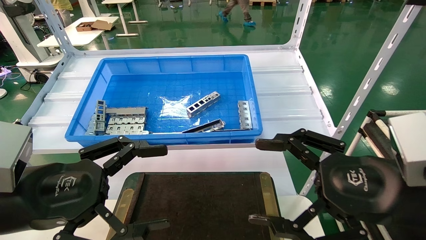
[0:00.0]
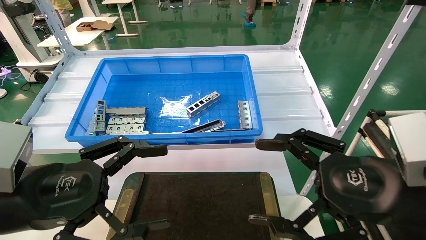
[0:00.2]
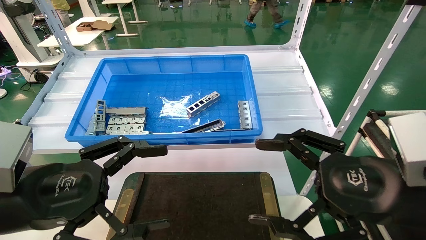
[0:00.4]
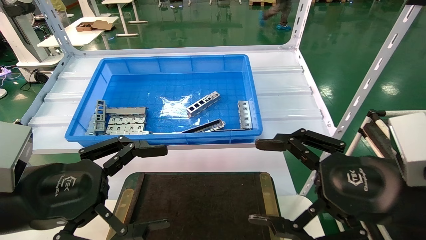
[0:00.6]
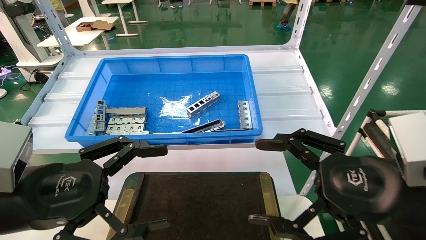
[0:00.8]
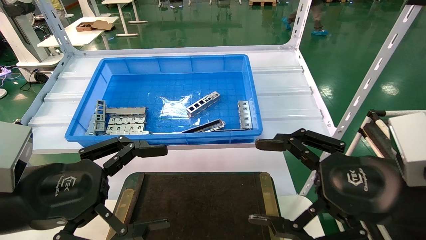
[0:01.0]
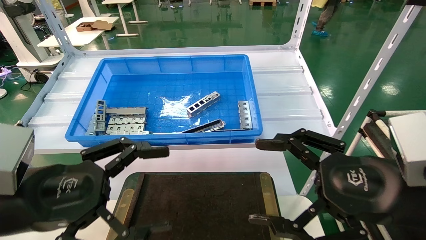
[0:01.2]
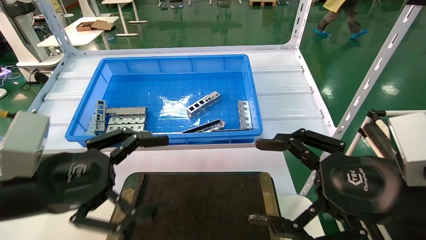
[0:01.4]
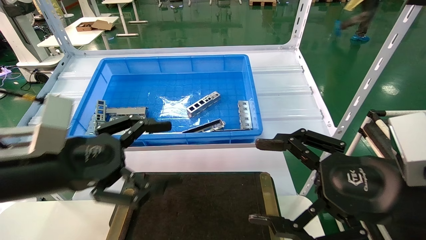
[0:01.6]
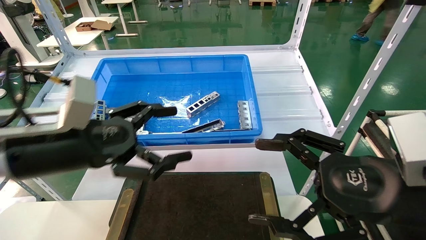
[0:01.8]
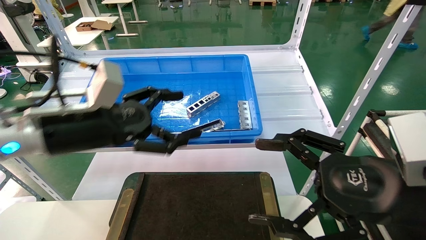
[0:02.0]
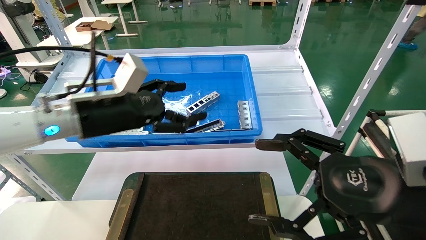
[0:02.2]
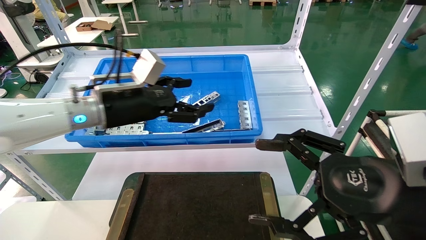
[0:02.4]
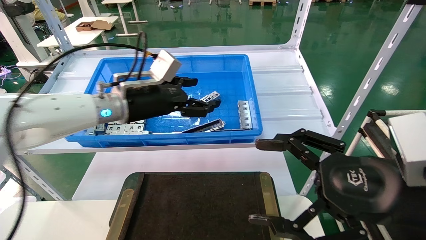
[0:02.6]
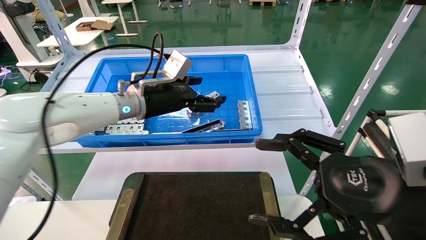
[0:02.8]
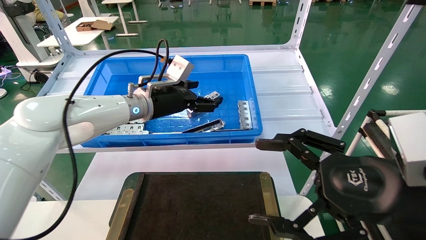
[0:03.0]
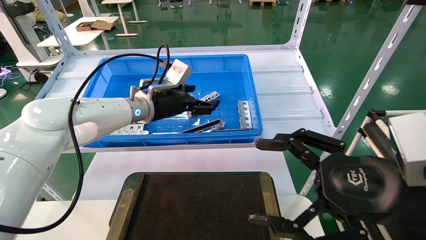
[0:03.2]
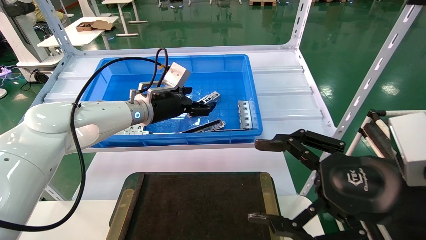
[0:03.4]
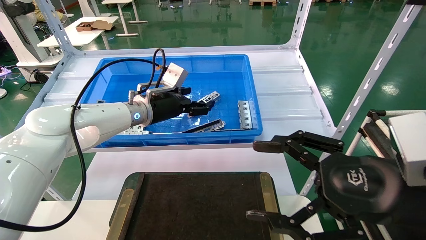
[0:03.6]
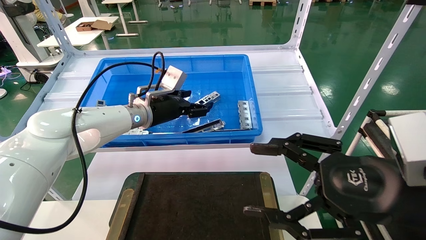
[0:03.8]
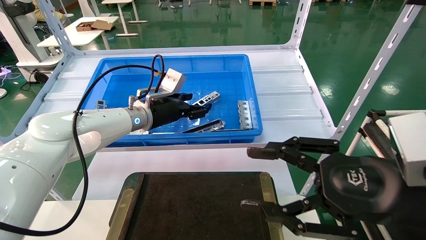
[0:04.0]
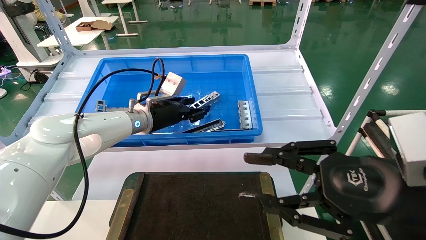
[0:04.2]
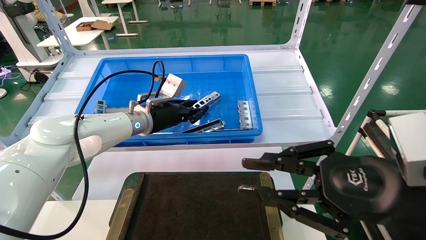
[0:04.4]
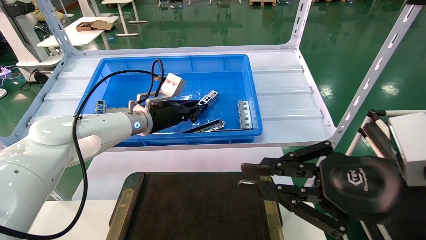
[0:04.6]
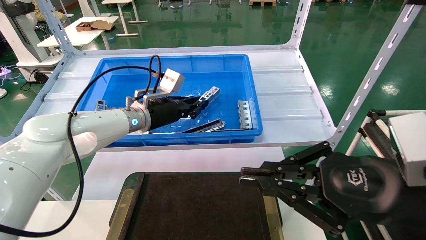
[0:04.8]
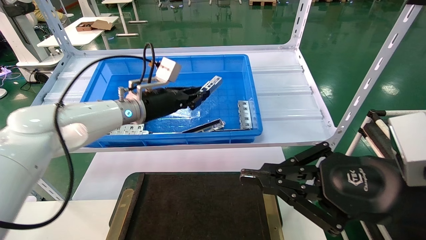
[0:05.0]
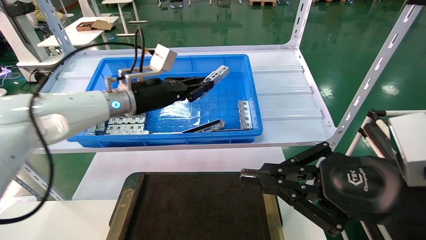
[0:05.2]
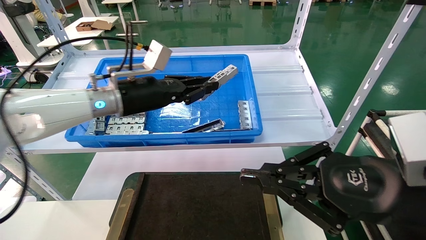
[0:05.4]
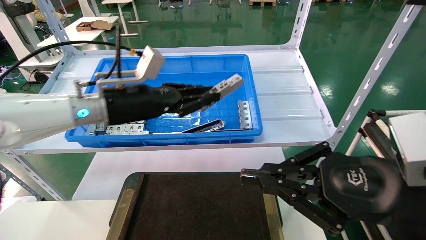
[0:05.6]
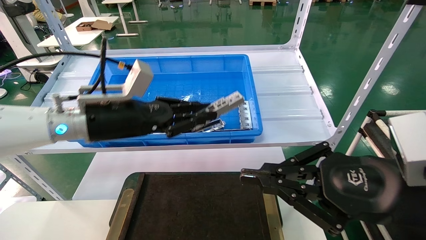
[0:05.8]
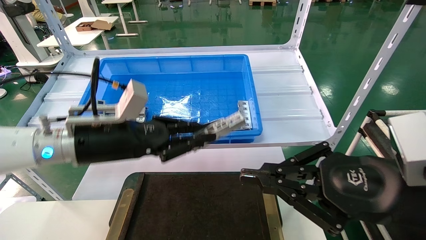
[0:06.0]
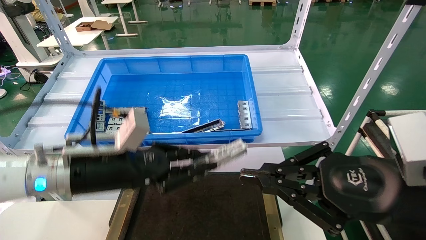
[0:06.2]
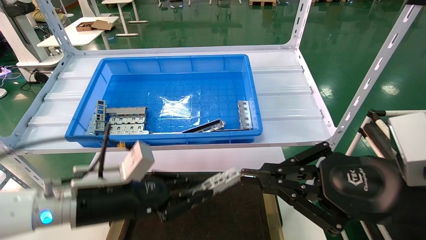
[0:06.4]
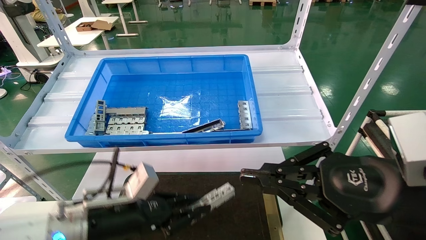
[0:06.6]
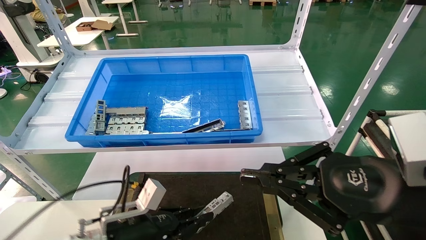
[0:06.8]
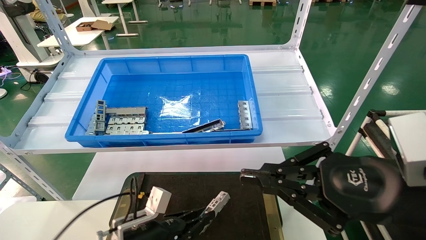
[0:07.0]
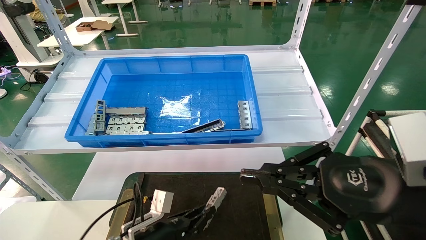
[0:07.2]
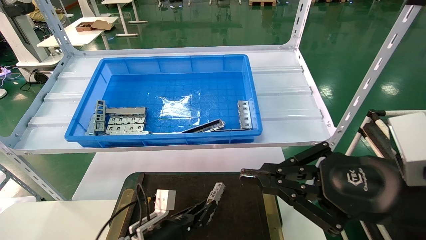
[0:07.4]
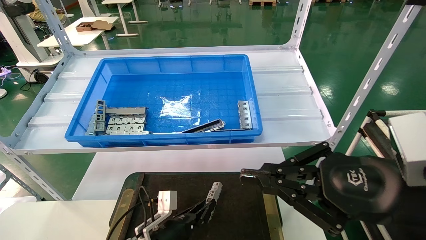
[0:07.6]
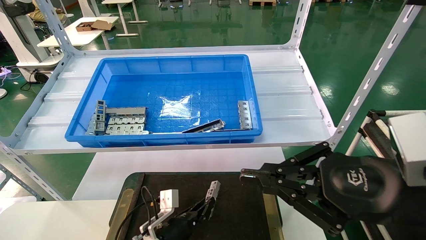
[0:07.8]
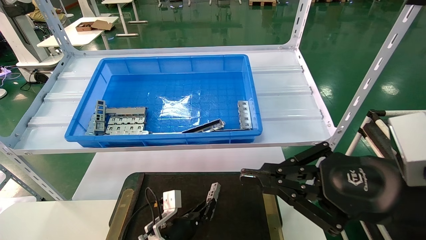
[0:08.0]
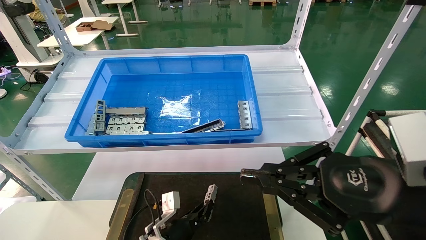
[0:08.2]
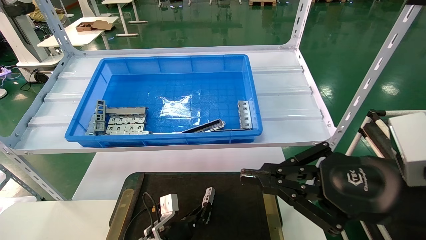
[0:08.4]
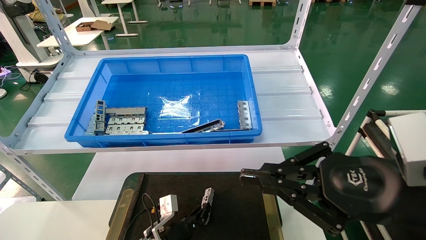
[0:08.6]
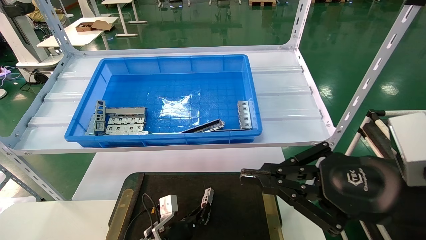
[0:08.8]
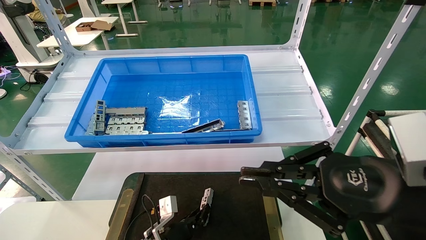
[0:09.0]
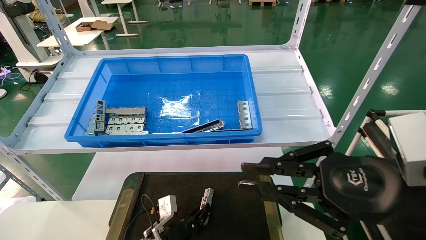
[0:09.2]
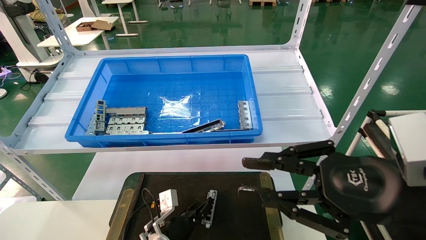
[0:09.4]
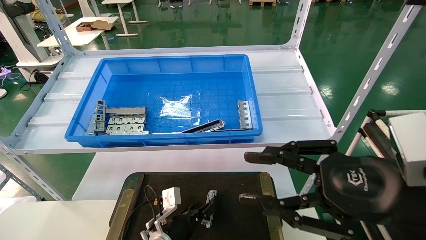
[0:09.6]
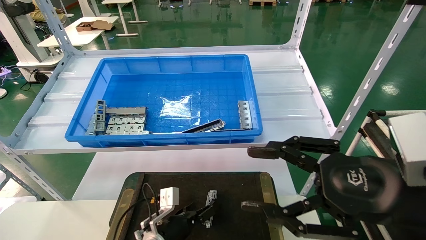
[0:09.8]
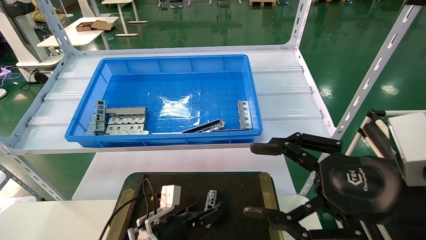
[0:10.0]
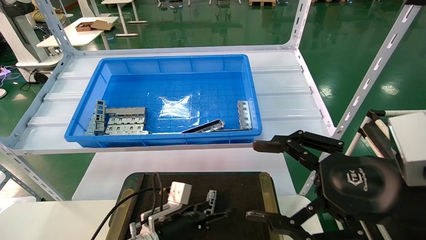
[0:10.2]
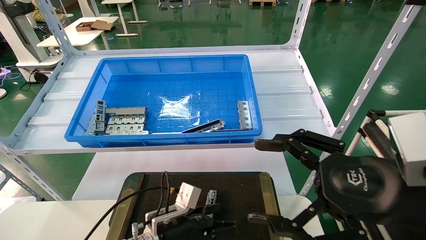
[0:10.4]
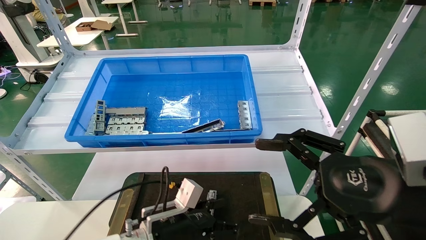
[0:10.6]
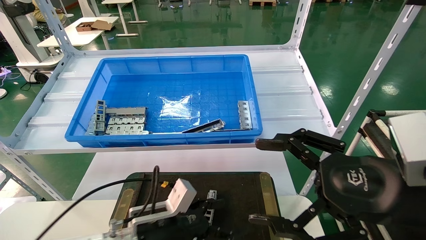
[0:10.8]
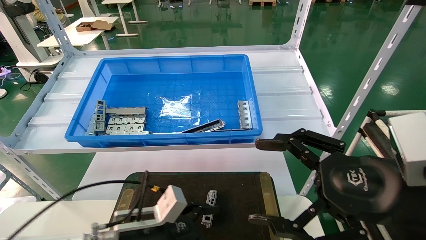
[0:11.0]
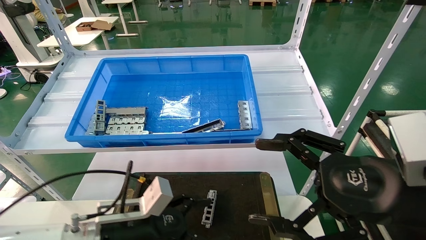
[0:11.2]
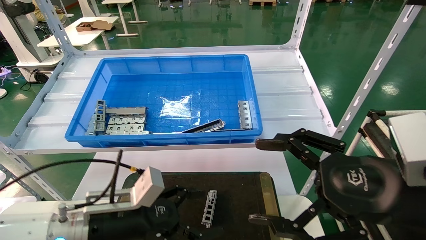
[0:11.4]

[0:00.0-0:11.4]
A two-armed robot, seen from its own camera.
Task of the whole recording: Grasp the part with one hand and place it on the black container.
Step, 0:01.6 to 0:04.6: Pick up the front USB bracket from the feeding area.
Step, 0:04.8 to 0:09.0: Place the front USB bracket into the box.
0:00.0 to 0:01.4: There are only small adjustments of the grippers.
0:01.4 to 0:02.8: The left gripper heads forward and to the right, covering roughly 25 cm.
0:02.8 to 0:04.2: The left gripper travels downward by approximately 5 cm, and closes. The right gripper closes its fingers.
0:04.2 to 0:05.6: The right gripper closes its fingers, while the left gripper is displaced backward and upward by approximately 10 cm, and closes up.
0:05.6 to 0:07.2: The left gripper heads downward, covering roughly 30 cm.
0:07.2 to 0:08.6: The left gripper goes roughly 10 cm downward and forward.
0:08.6 to 0:10.0: The right gripper opens up. The left gripper goes approximately 5 cm upward, and opens its fingers.
0:10.0 to 0:11.4: The left gripper heads upward, backward and to the left, covering approximately 15 cm.

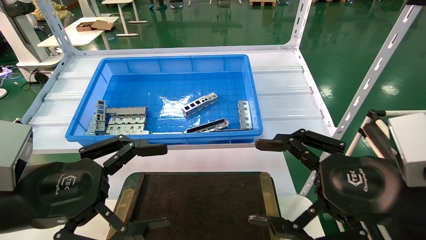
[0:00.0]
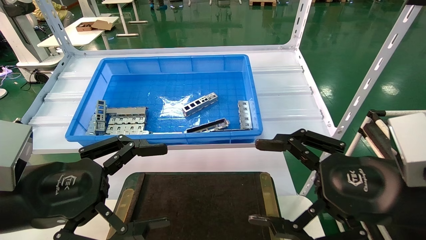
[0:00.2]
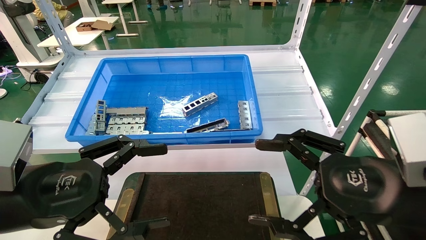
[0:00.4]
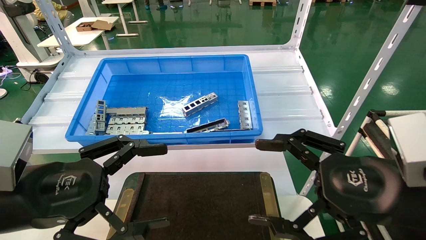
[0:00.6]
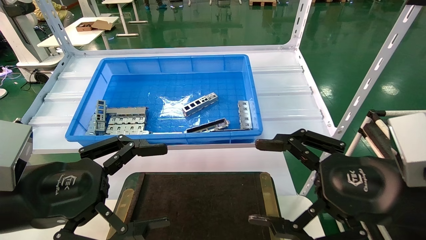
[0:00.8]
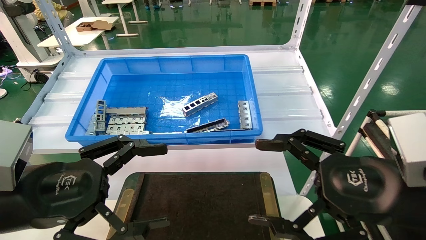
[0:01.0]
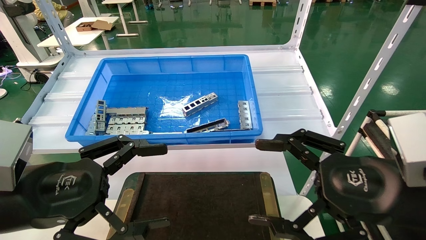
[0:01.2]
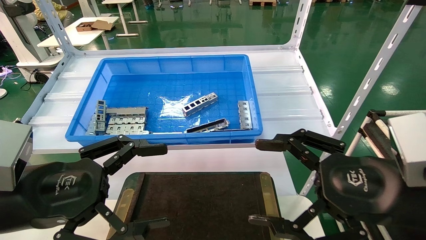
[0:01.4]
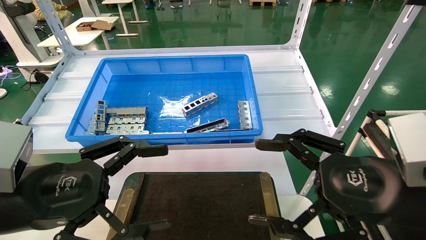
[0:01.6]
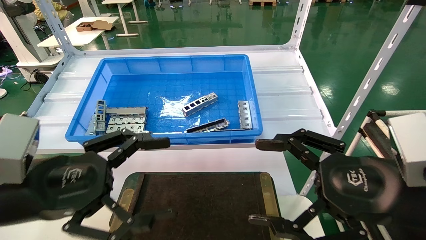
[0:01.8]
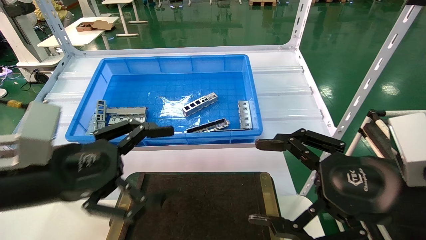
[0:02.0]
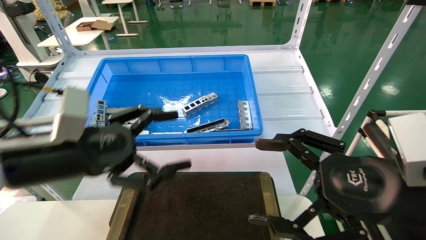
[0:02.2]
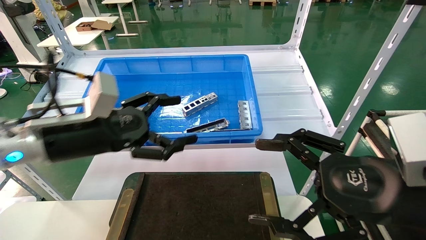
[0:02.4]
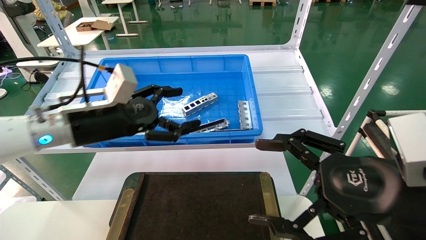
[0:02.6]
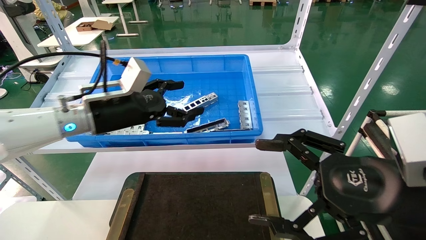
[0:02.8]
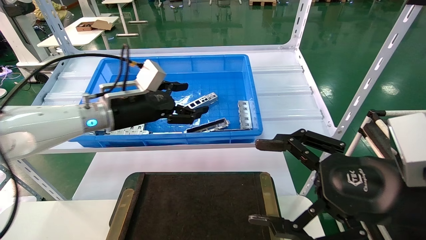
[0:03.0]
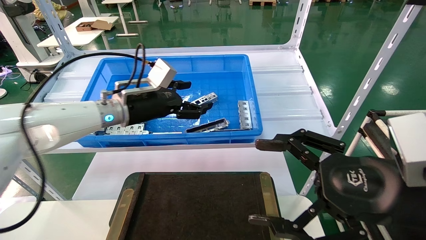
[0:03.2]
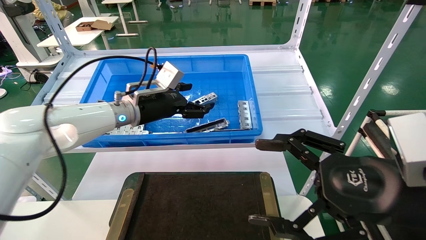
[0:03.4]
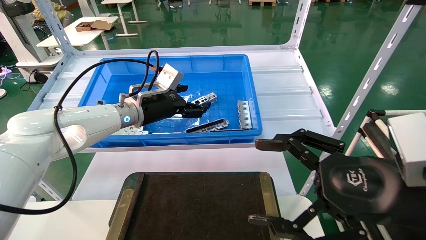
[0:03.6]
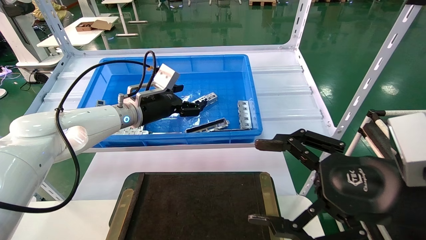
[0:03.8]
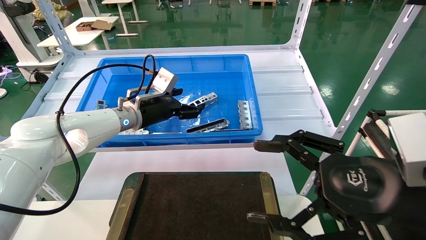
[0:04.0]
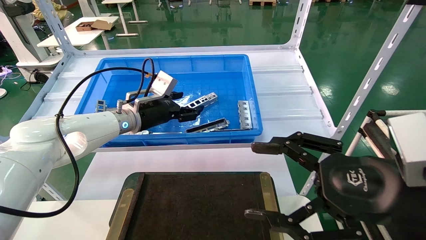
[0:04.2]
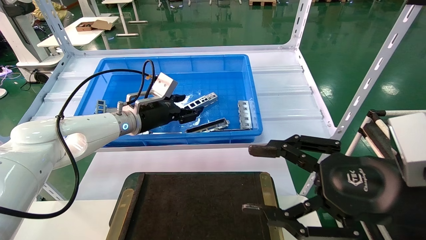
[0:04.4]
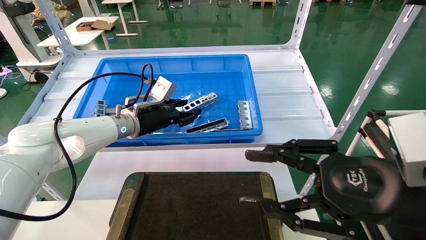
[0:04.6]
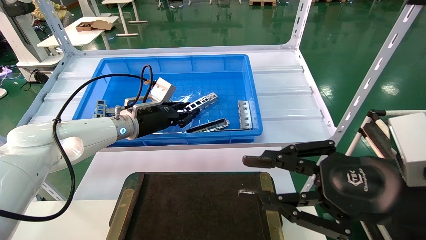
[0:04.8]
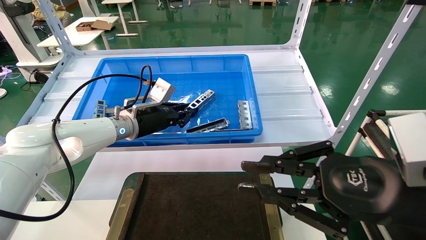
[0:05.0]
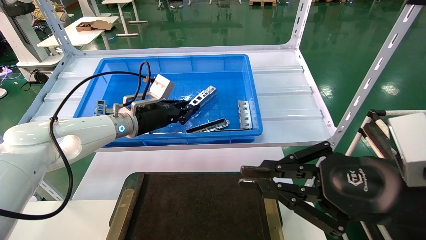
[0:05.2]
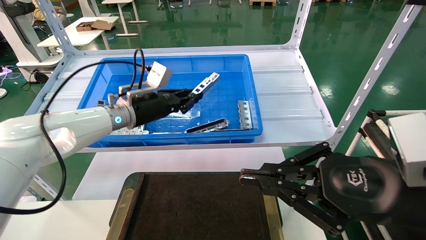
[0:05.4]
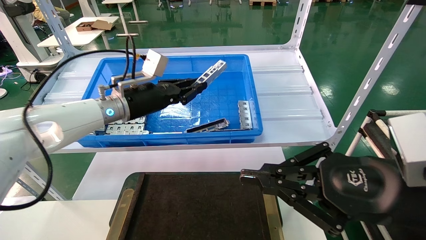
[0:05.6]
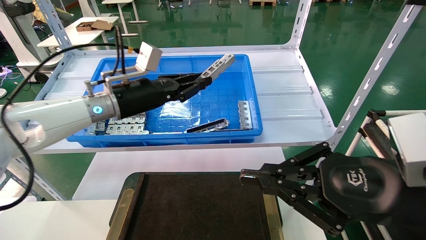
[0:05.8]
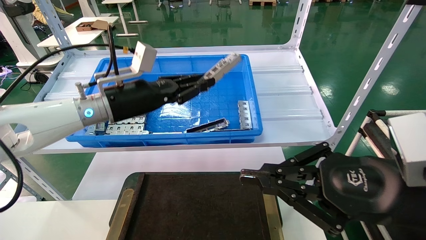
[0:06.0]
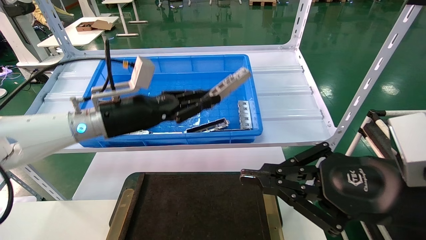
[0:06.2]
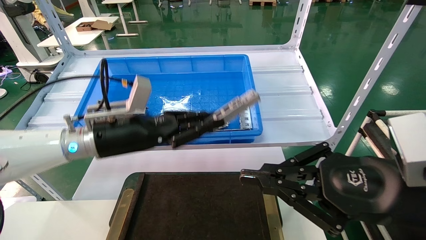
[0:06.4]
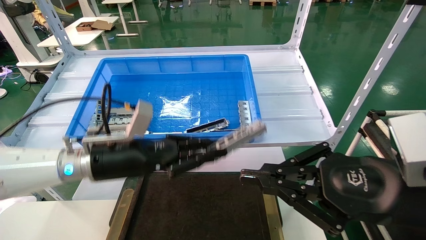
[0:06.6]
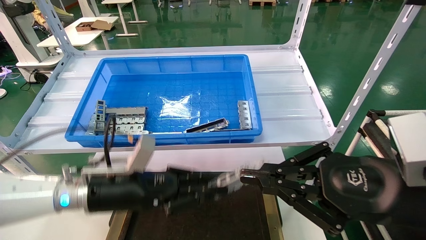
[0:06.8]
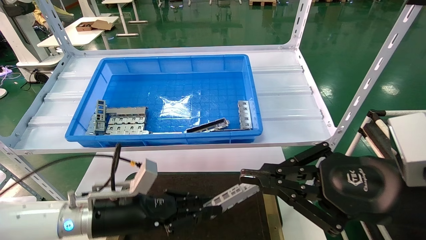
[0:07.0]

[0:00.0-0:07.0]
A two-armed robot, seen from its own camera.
Task of the whole recording: Grasp the part with one hand and place it on the black container.
Step, 0:01.8 to 0:05.4: Pick up the front USB bracket from the feeding area.
0:00.0 to 0:01.4: Both grippers stay about where they are.
0:01.4 to 0:02.8: The left gripper is displaced forward by about 20 cm.
0:02.8 to 0:04.2: The left gripper moves forward, roughly 10 cm.
0:04.2 to 0:05.6: The right gripper closes up; the left gripper moves about 5 cm, and closes its fingers.
0:05.6 to 0:07.0: The left gripper moves downward and backward, about 20 cm.
